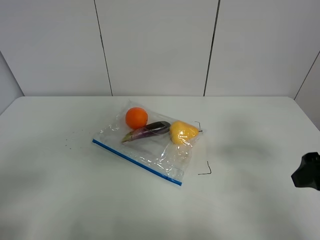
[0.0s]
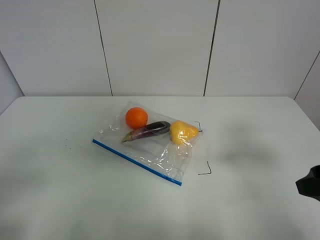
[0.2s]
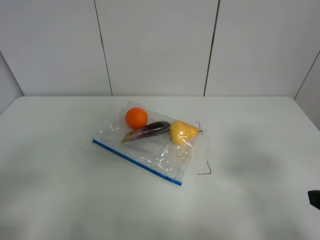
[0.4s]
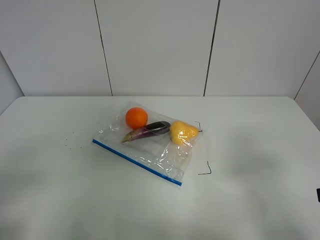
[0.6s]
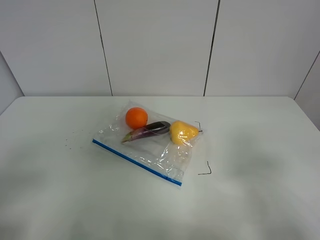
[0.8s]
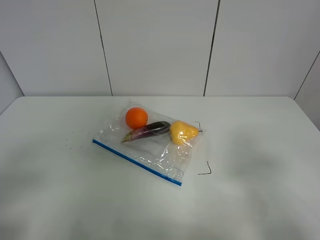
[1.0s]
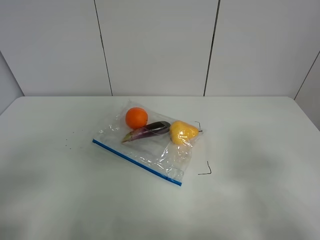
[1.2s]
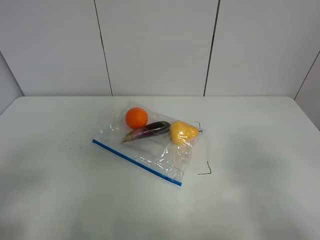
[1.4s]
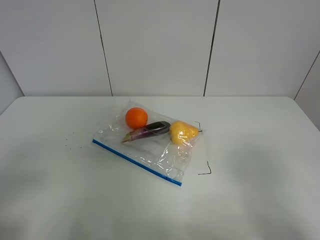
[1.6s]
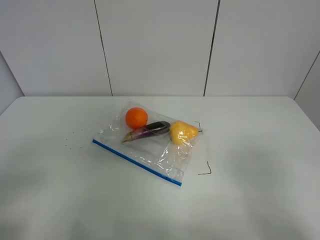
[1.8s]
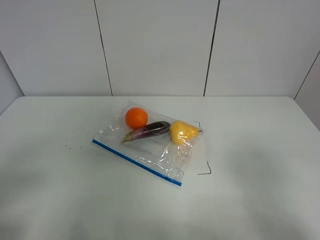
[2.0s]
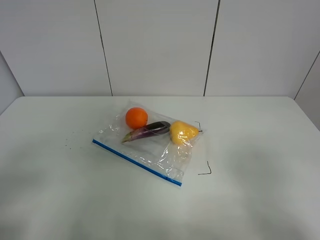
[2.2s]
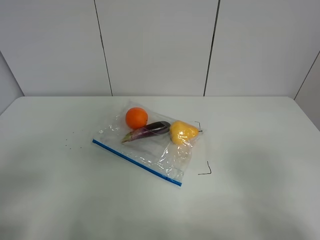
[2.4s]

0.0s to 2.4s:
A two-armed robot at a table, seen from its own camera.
0.0s to 1.2s: The right gripper is displaced backward by approximately 10 cm.

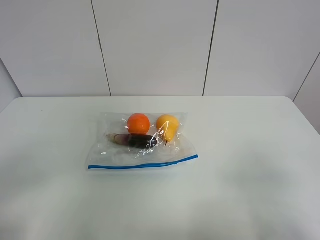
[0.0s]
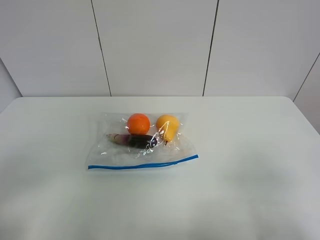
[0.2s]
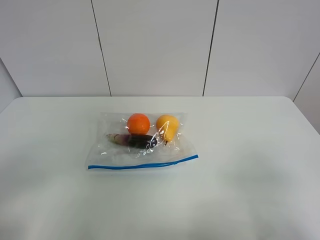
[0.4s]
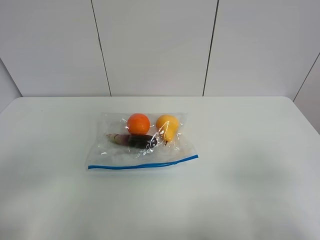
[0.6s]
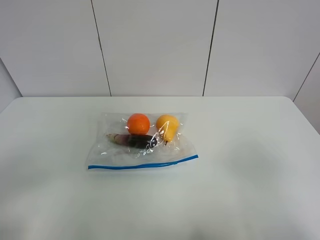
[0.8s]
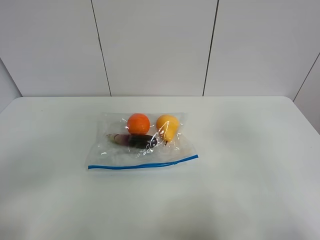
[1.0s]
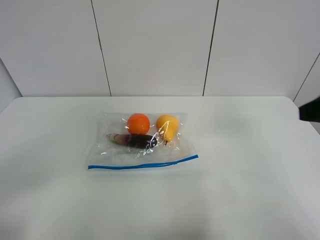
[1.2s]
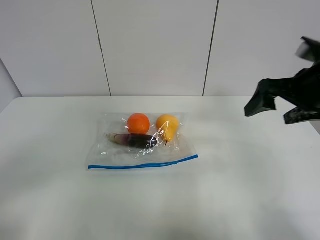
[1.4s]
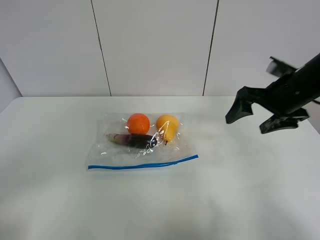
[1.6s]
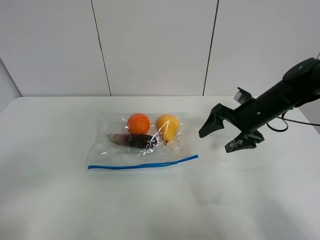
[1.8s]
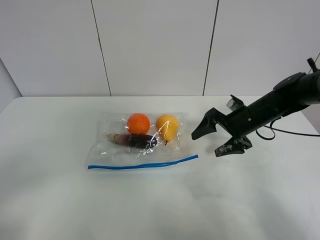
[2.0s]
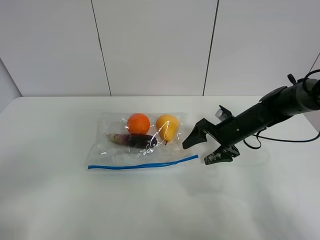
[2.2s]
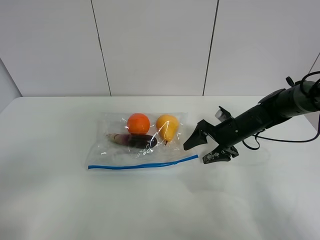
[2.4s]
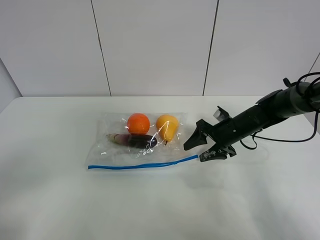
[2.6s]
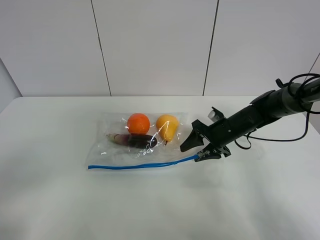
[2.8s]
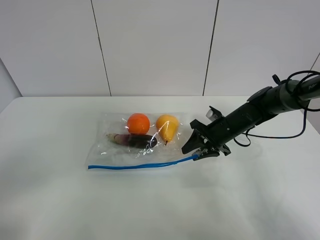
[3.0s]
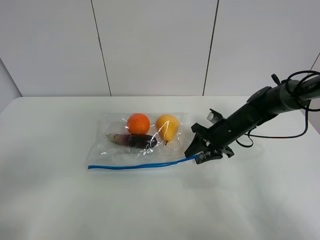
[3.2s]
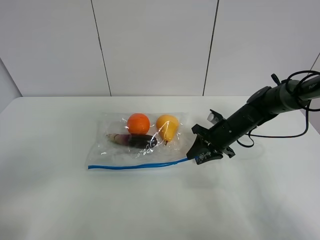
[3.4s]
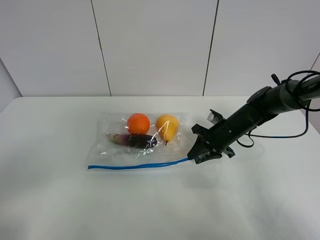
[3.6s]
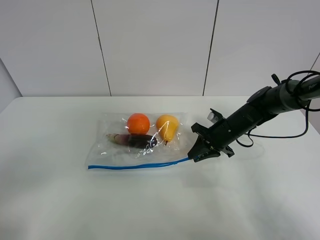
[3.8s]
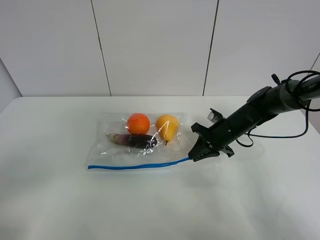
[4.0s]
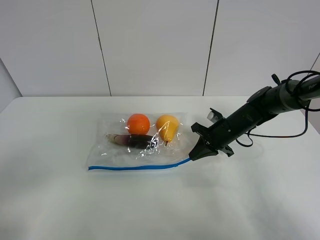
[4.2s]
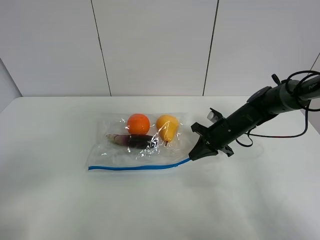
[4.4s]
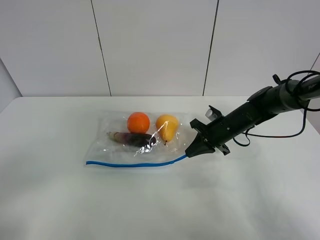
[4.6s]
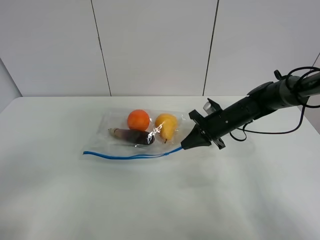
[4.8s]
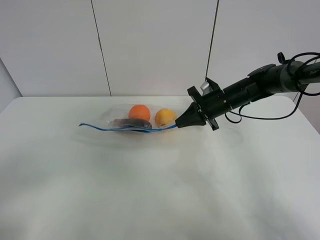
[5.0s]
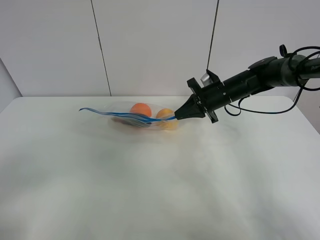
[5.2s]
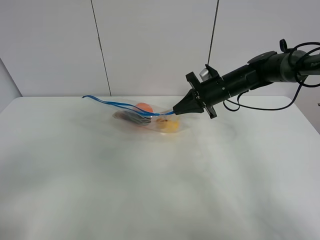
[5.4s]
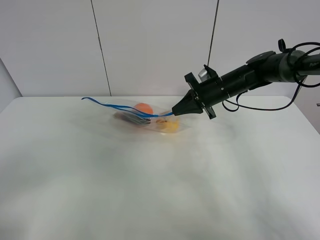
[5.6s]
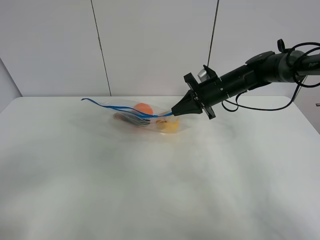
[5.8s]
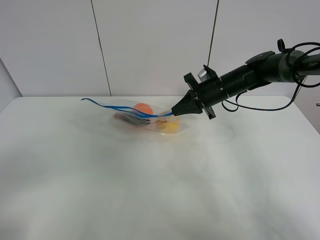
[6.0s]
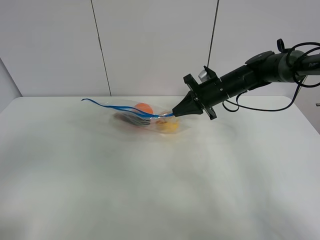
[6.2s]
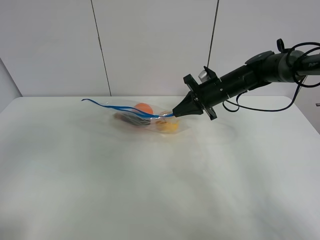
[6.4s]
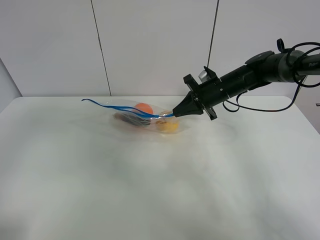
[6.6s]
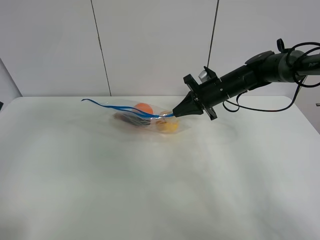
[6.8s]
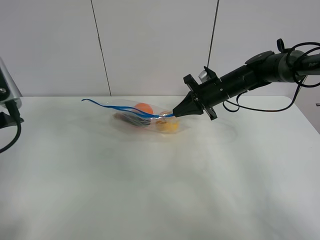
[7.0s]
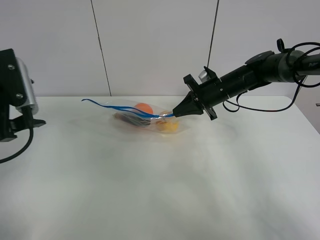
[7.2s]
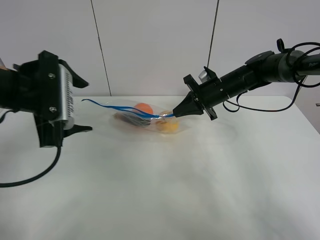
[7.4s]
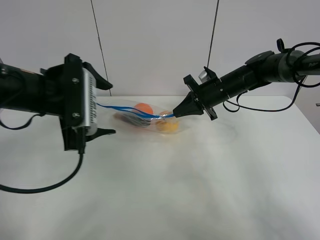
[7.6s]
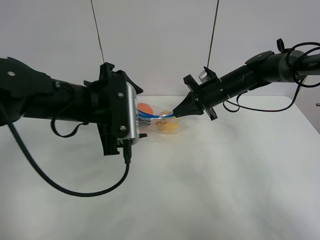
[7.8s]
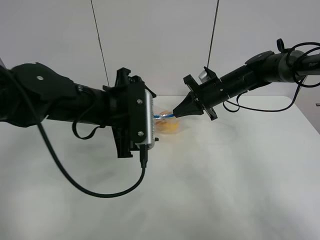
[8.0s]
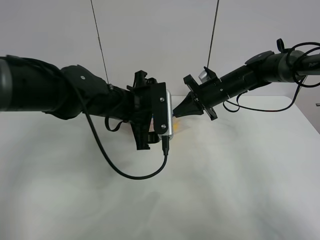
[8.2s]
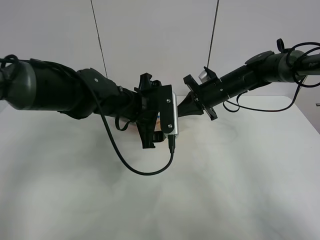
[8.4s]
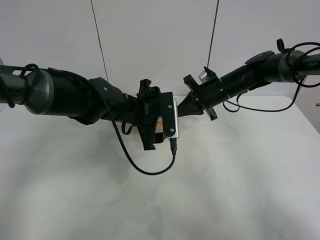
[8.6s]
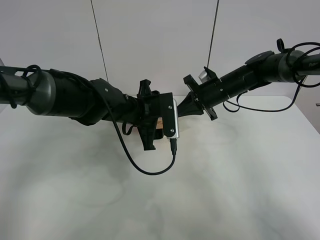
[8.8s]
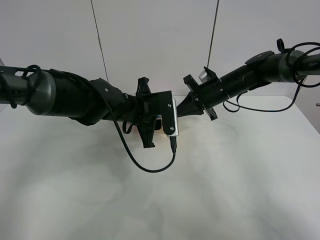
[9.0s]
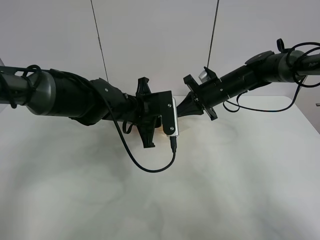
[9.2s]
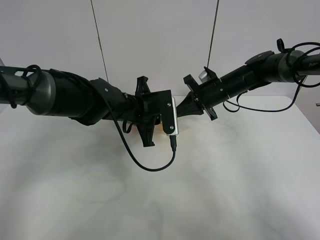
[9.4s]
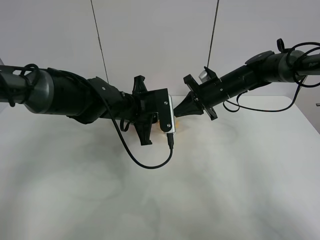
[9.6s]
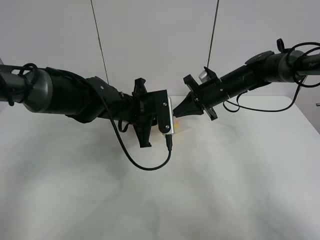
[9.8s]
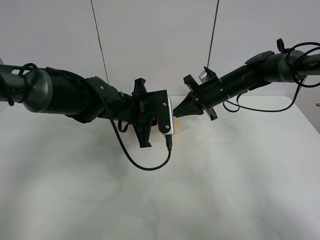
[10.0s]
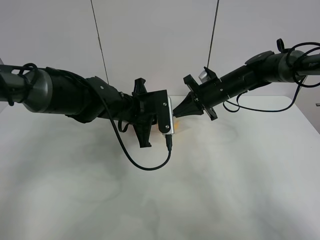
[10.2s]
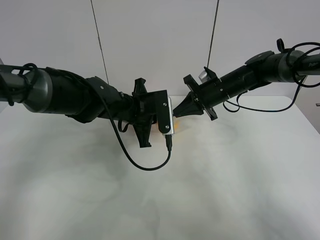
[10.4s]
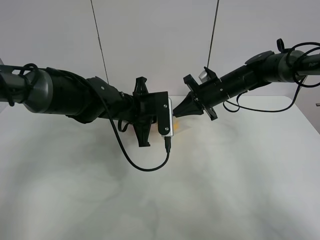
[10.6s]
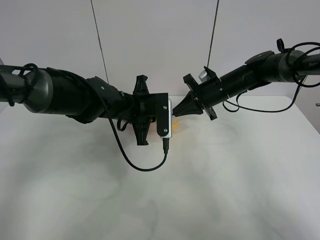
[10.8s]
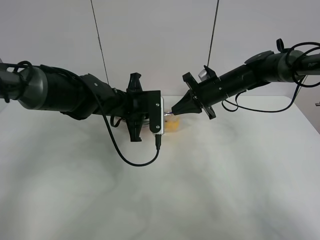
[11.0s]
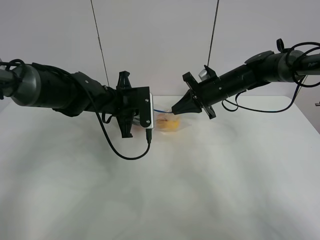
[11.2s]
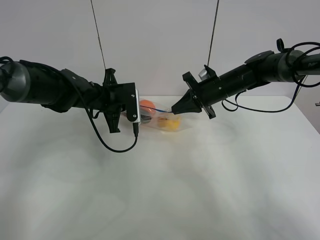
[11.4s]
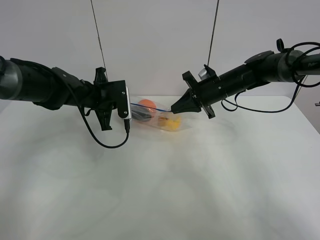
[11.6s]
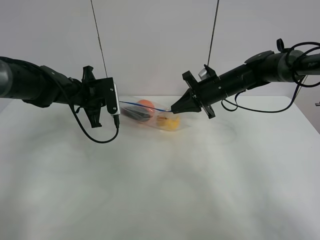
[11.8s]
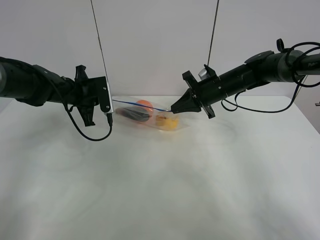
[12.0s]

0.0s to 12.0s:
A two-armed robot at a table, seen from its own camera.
Step, 0.0s to 4.0s: Grasp the fruit bag with right gripper.
Step, 4.2s to 5.8s: Lift the fruit bag with your right gripper.
0.0s to 1.6s: The right gripper shifts approximately 30 cm forward.
1.6s to 3.0s: The right gripper is displaced downward by approximately 15 cm, and closes its fingers.
3.0s to 4.4s: The right gripper closes its fingers.
4.4s to 6.0s: The right gripper travels upward and forward by roughly 10 cm.
6.0s to 7.6s: The left gripper is displaced forward and to the right by roughly 30 cm.
7.6s to 9.0s: The left gripper travels to the right, downward and forward by some 15 cm, and closes.
9.0s to 10.4s: The left gripper closes.
10.4s to 12.0s: The left gripper is displaced to the left by approximately 15 cm.

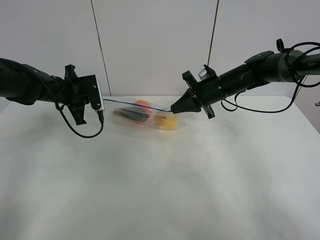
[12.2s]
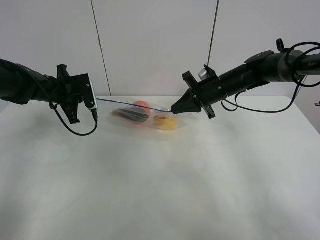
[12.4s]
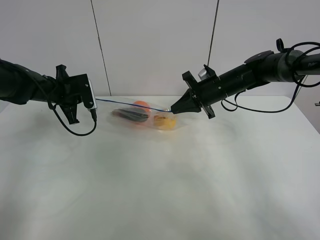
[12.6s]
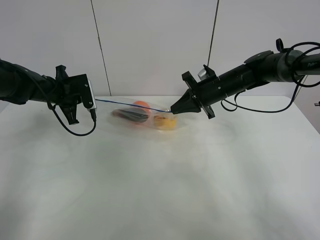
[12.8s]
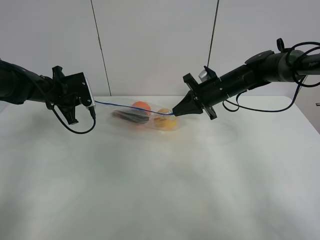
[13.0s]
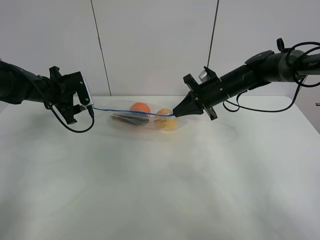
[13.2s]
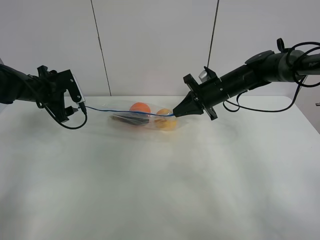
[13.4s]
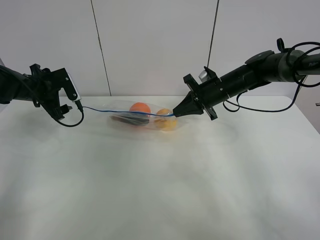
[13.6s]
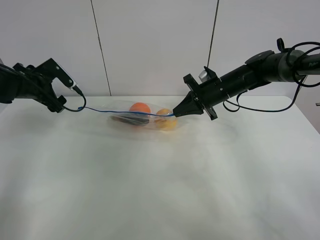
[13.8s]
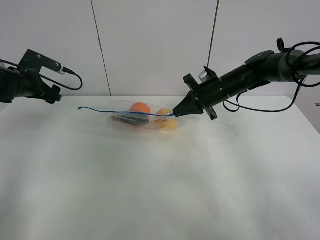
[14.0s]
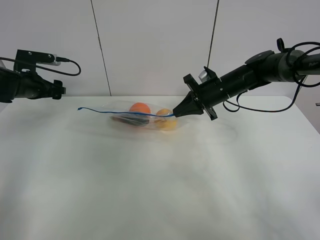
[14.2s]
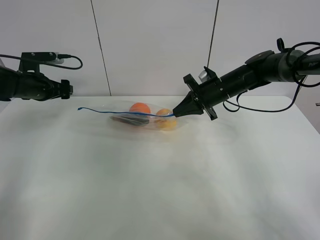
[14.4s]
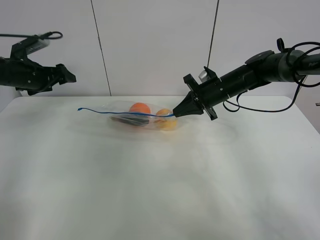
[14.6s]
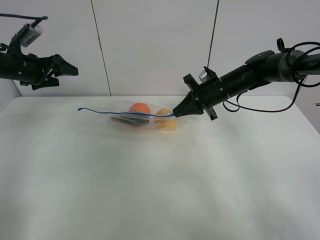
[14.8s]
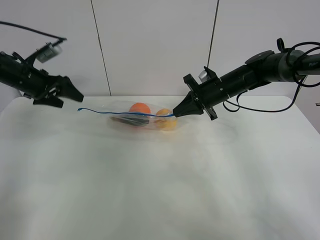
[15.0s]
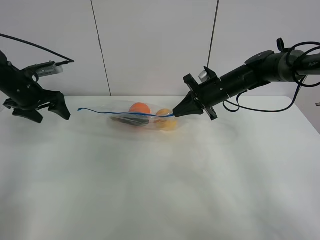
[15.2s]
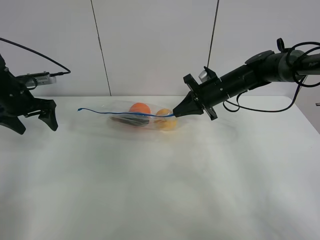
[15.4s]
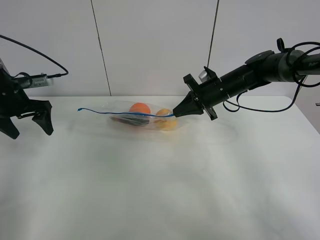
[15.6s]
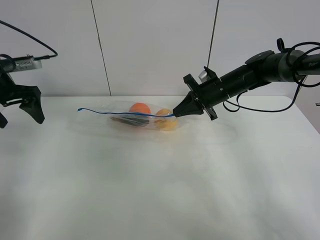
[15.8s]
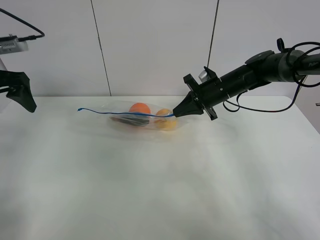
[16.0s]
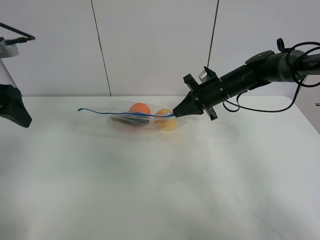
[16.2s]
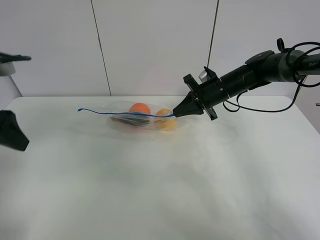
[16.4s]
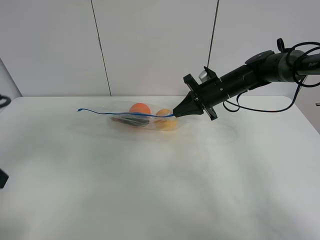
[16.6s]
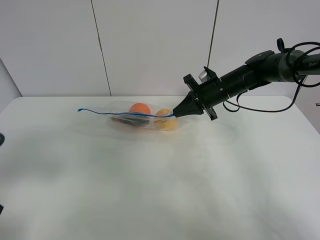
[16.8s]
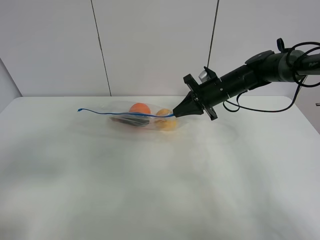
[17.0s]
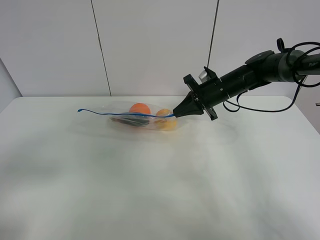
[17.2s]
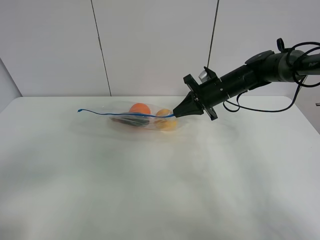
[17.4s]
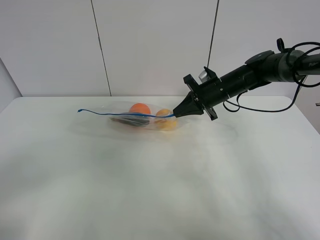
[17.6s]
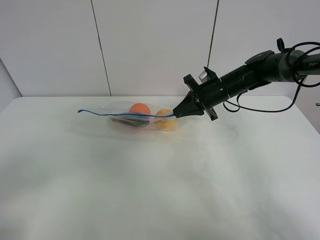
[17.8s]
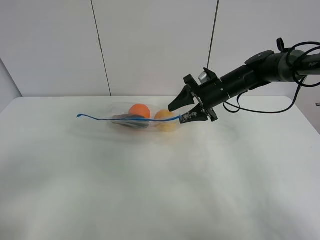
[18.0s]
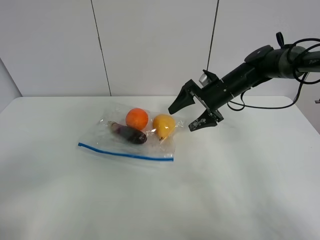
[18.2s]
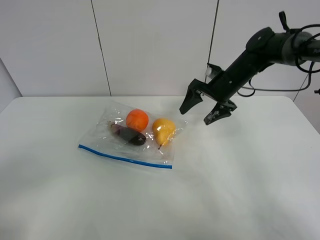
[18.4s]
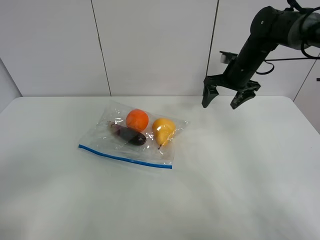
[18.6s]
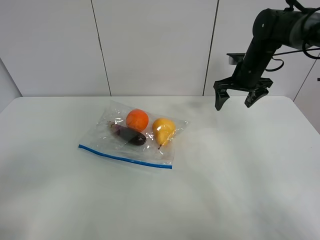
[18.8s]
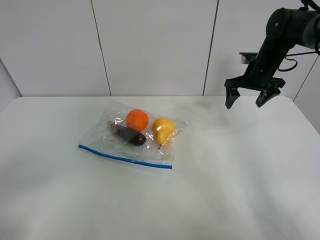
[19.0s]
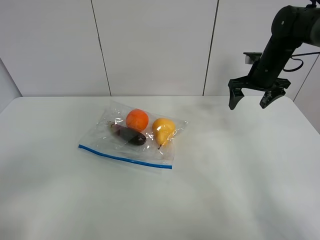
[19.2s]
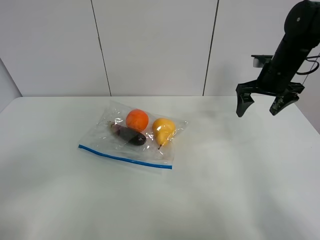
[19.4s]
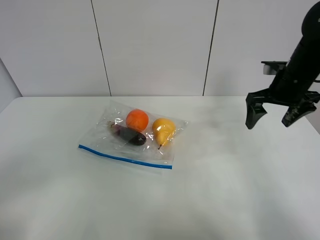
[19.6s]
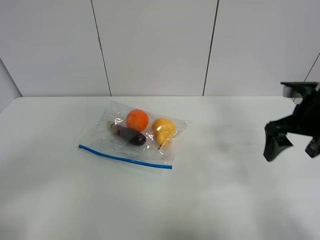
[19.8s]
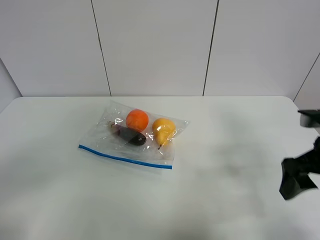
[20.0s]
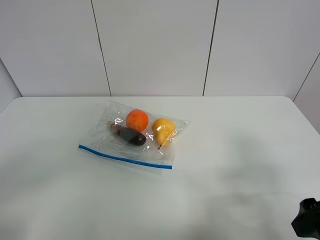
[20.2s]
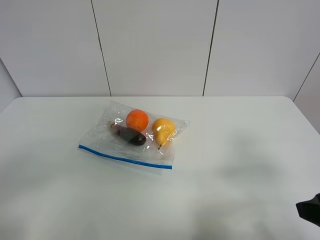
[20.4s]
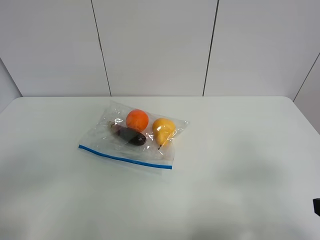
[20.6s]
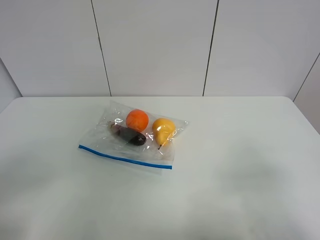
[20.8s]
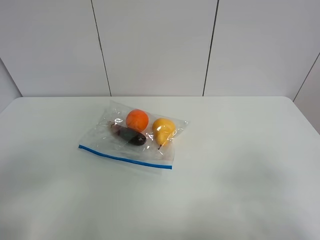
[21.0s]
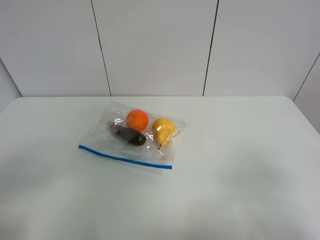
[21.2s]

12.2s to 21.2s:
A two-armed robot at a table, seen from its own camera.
12.2s to 13.8s: The left gripper moves to the left, approximately 10 cm, and opens up.
15.2s to 16.6s: The left gripper travels backward by approximately 25 cm.
16.6s to 18.2s: The left gripper travels backward by roughly 15 cm. Meanwhile the right gripper opens up.
18.2s to 19.8s: The right gripper shifts about 20 cm backward and to the right.
19.8s to 21.2s: The right gripper is displaced backward by about 25 cm.
